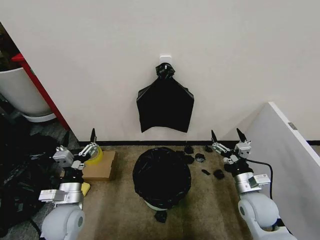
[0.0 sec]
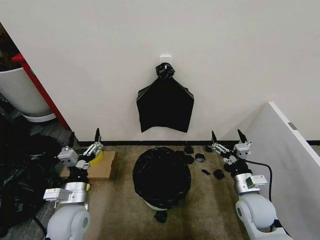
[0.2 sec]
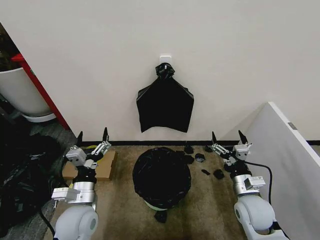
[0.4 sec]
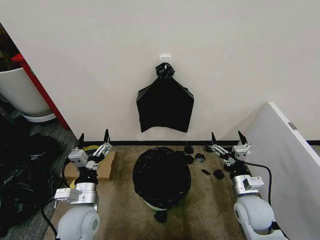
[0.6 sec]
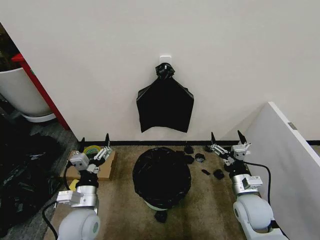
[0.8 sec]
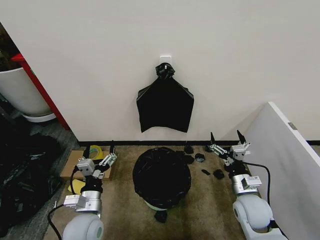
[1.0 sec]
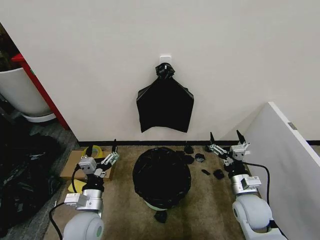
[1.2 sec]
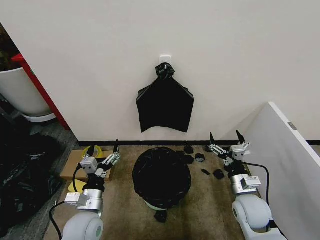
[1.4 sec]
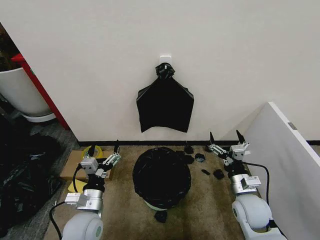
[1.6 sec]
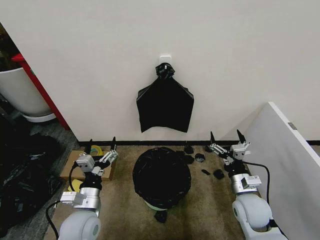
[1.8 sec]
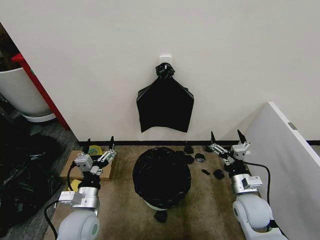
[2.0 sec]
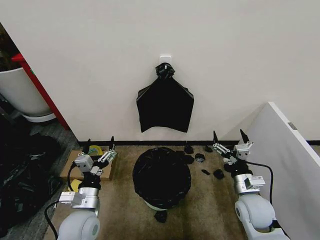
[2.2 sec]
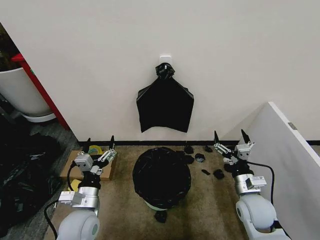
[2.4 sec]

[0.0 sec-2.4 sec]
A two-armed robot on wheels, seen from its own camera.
Task of the whole recording: Place the garbage bag over the trash bin.
0.0 sec to 1.2 sec: The left gripper is displaced to the right by about 5 cm.
1.2 sec to 2.4 sec: The grippers make only small movements.
